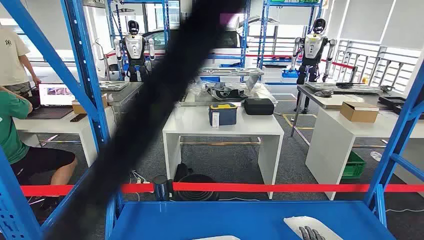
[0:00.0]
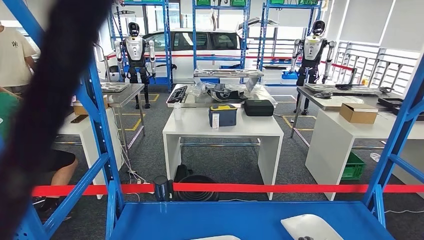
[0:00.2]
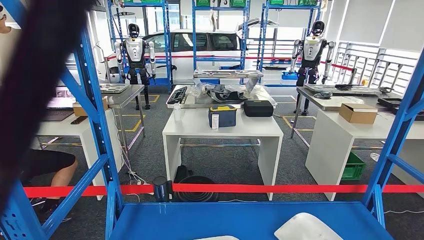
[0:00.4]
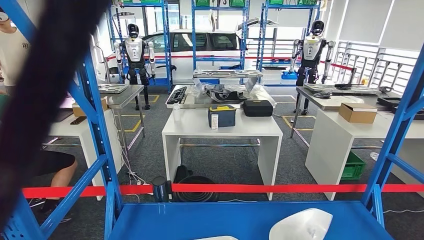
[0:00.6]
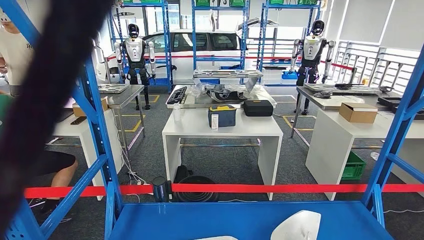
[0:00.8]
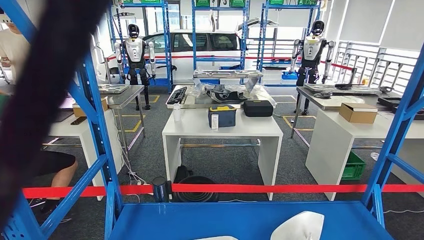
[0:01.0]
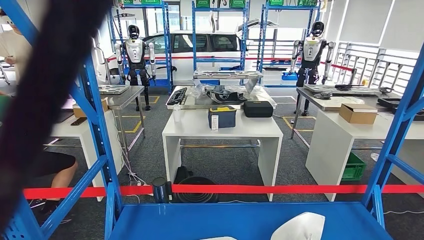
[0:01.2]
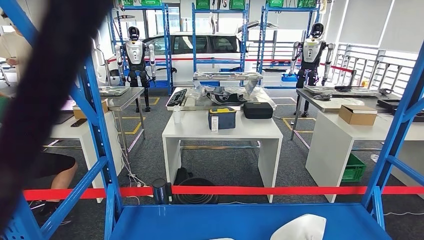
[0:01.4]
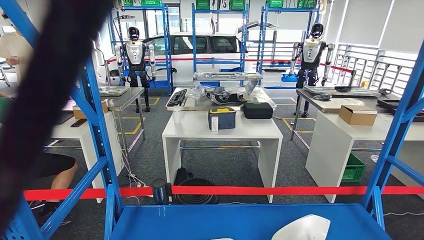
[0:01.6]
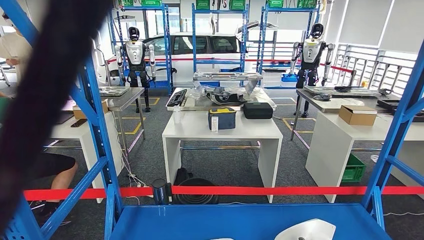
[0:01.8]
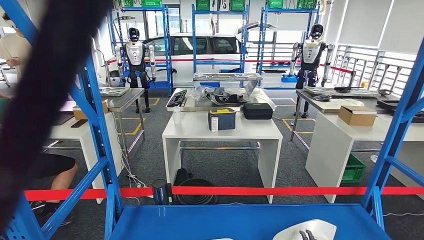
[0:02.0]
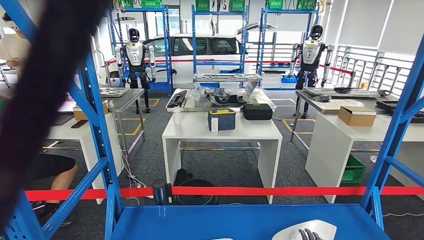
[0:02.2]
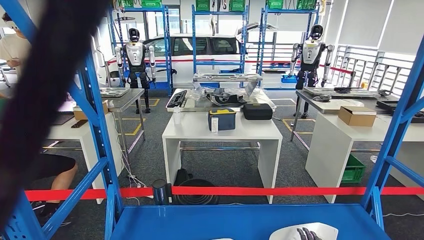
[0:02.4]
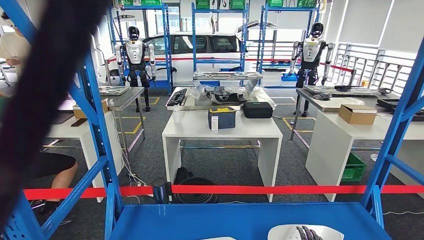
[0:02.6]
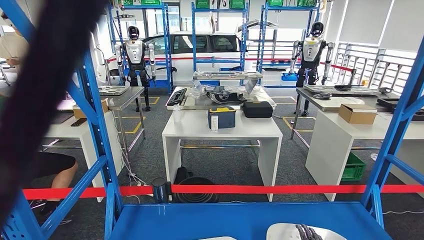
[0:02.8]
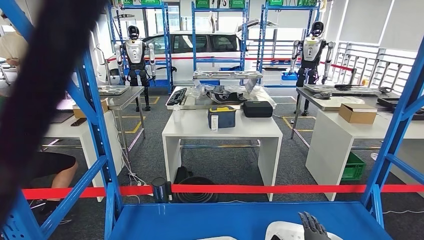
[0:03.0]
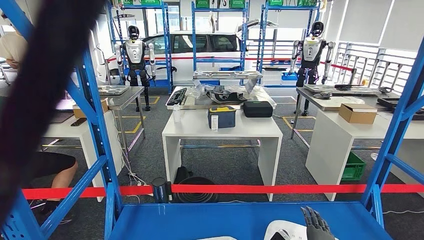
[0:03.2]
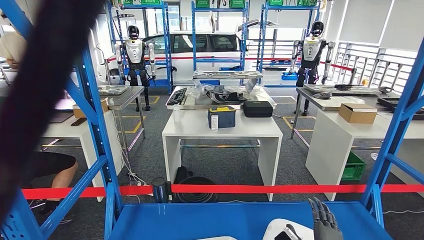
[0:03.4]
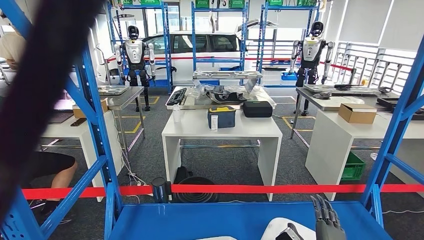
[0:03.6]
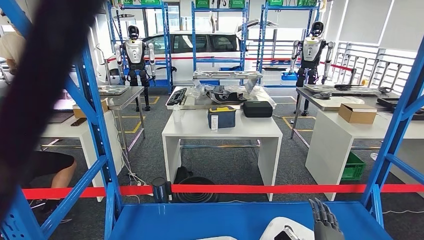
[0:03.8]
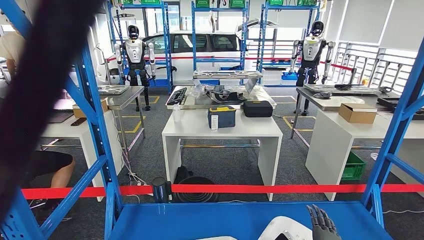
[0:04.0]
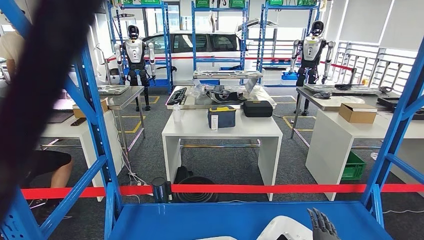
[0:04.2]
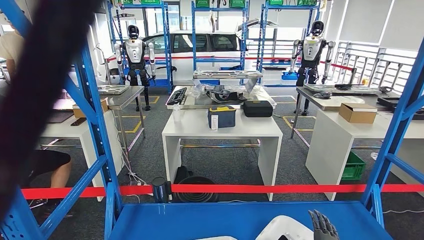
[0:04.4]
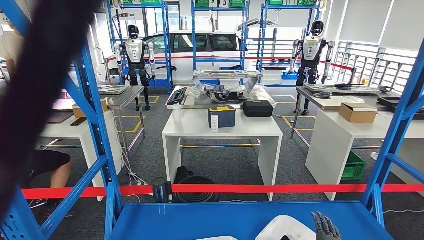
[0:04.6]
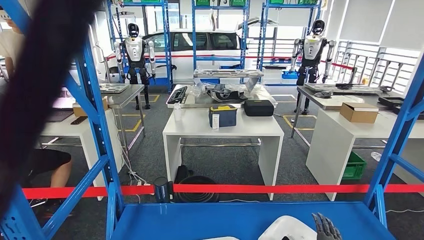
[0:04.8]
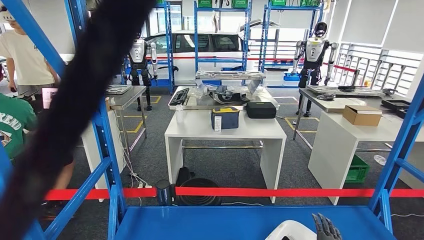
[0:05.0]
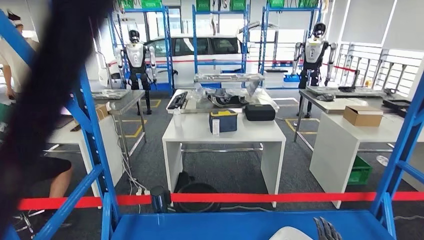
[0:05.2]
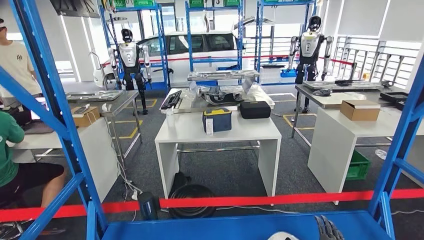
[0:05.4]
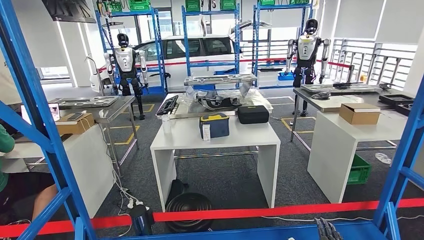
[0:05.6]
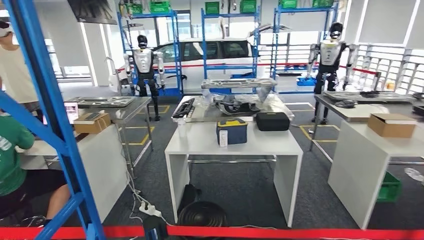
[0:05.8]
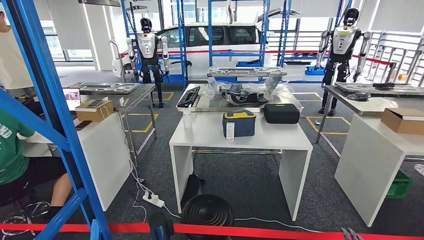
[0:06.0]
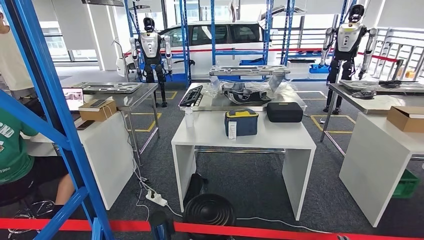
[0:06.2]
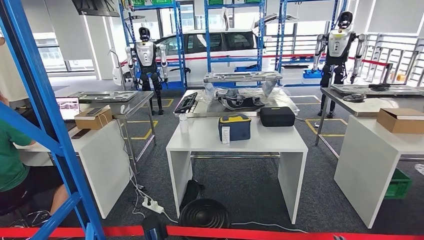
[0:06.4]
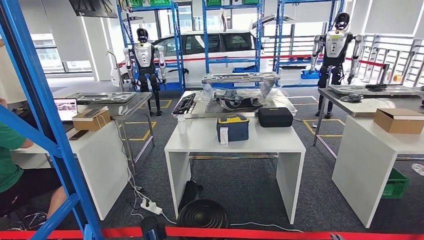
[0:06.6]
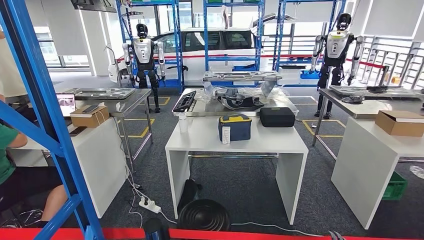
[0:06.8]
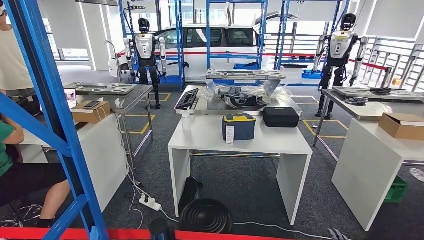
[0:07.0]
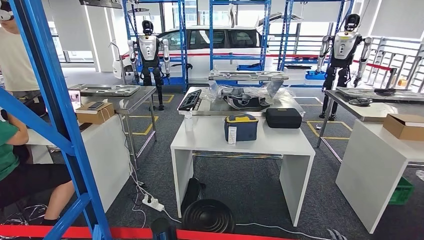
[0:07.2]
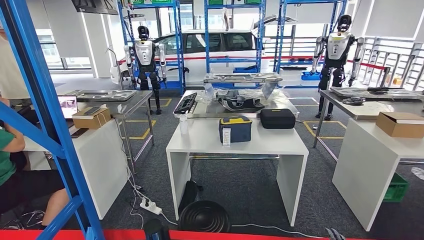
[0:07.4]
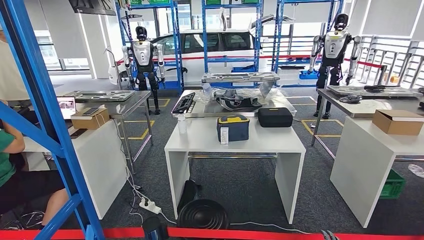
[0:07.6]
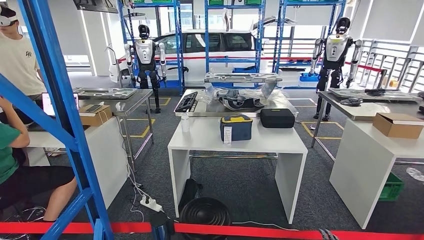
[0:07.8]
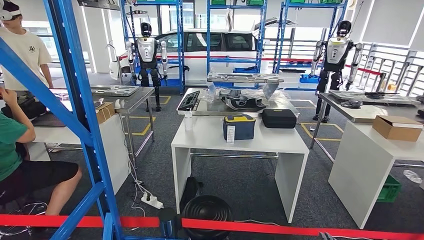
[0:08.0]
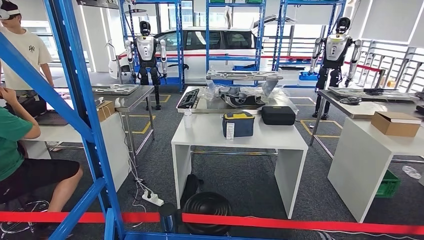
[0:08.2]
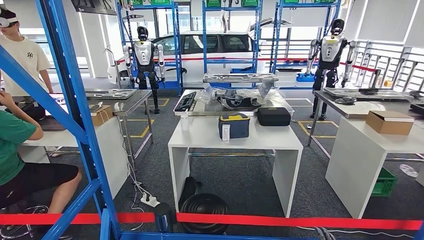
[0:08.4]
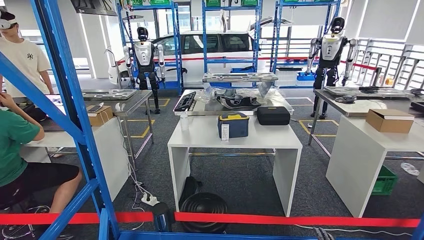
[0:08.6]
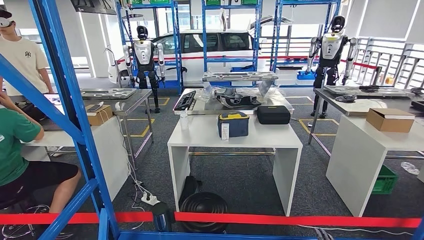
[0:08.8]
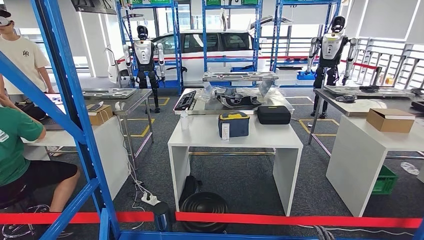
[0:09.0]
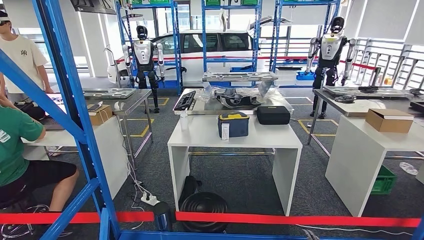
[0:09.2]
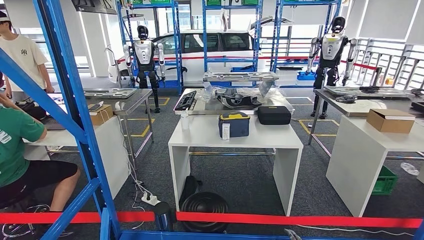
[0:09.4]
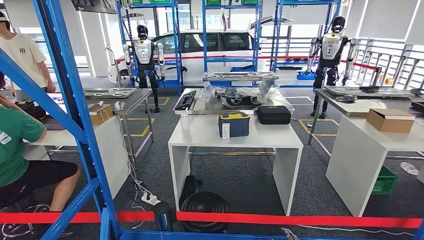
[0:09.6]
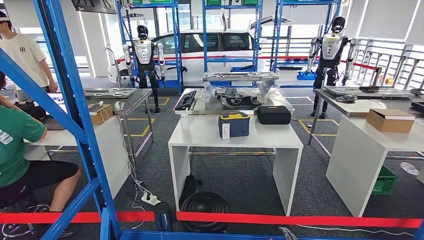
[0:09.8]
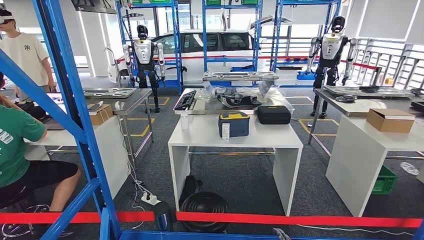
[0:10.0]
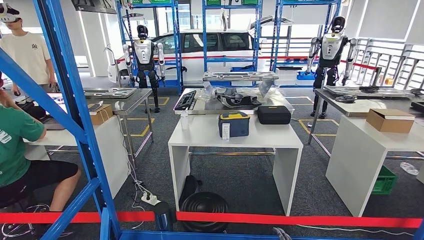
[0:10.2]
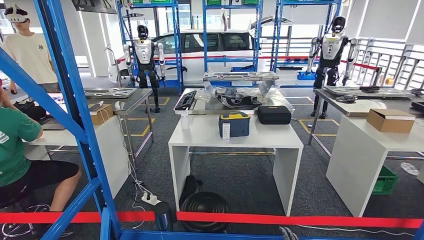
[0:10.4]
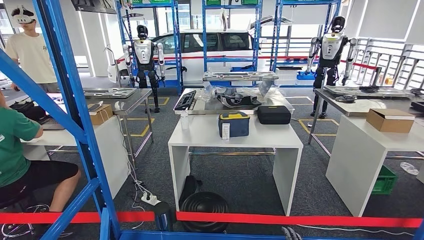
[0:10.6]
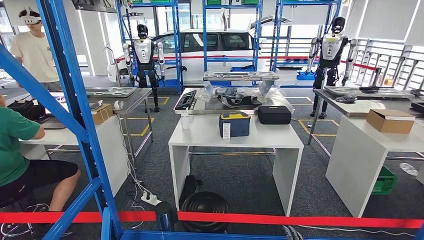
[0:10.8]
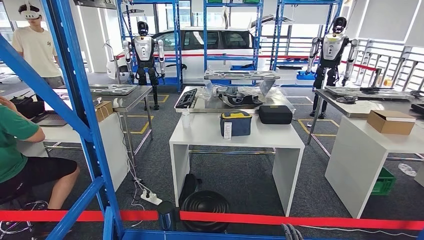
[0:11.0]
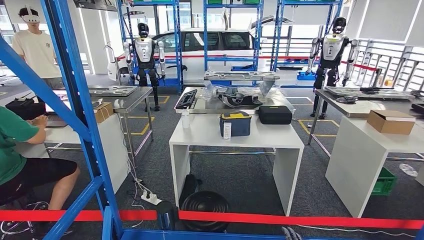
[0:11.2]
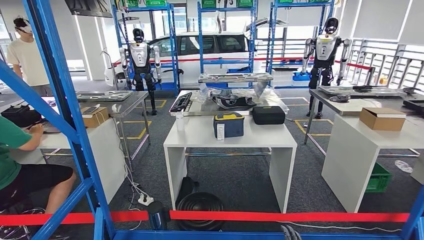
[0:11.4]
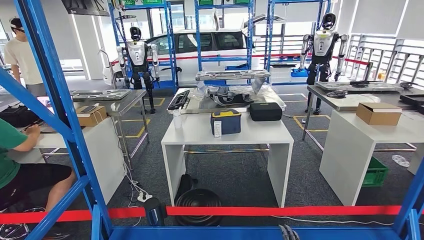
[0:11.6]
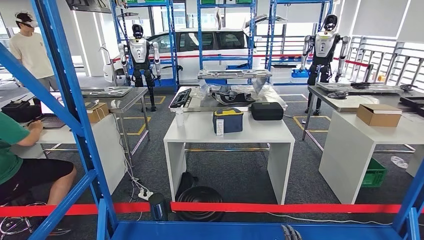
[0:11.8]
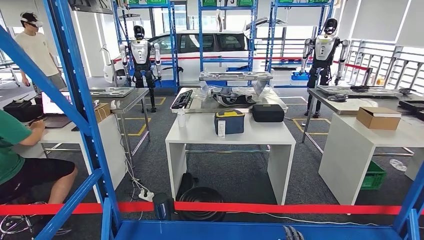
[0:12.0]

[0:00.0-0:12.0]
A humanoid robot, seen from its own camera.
0:01.6 to 0:03.0: The hands stay close to where they were, moving slightly.
0:09.0 to 0:10.4: The right hand heads to the left, covering some 10 cm.

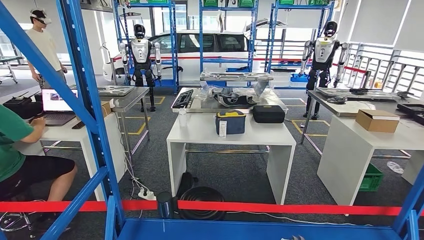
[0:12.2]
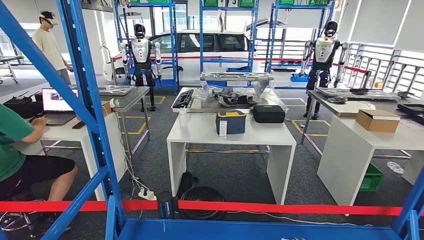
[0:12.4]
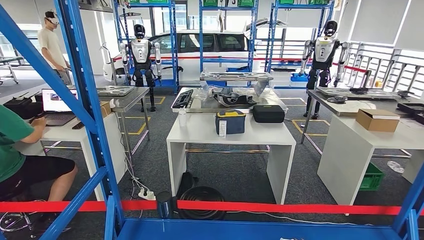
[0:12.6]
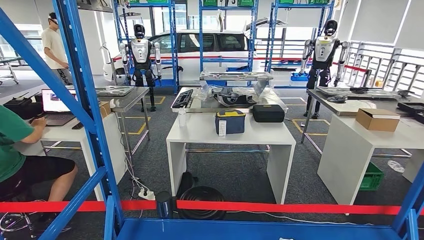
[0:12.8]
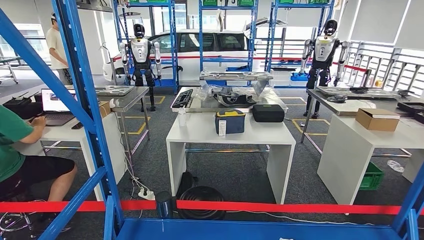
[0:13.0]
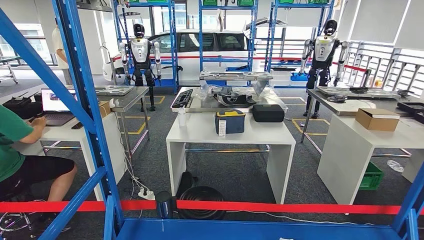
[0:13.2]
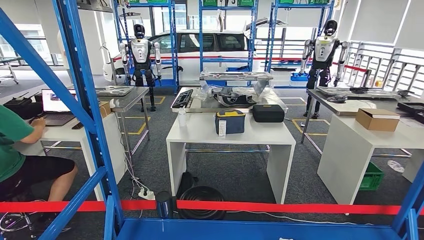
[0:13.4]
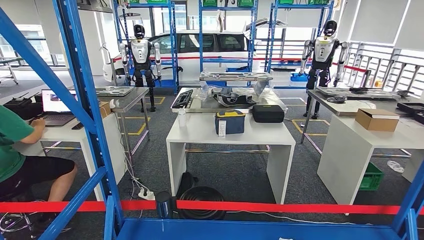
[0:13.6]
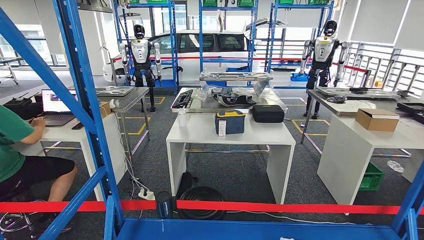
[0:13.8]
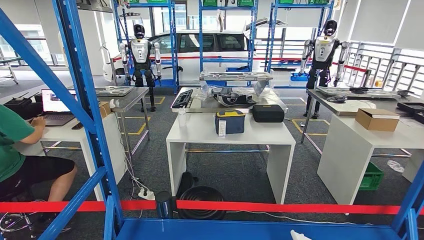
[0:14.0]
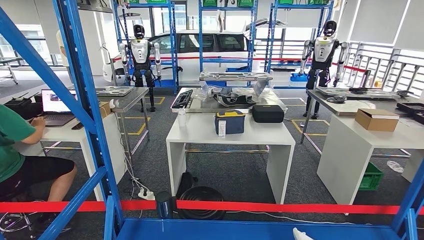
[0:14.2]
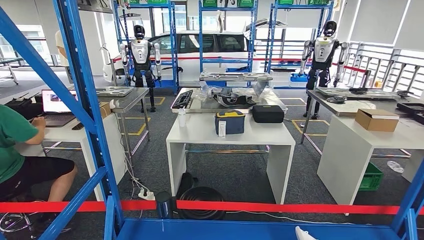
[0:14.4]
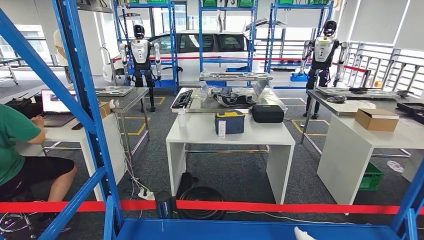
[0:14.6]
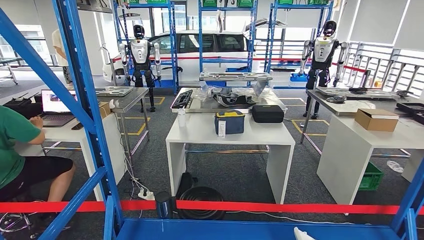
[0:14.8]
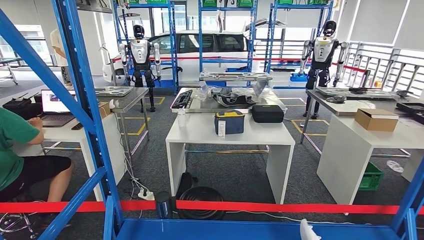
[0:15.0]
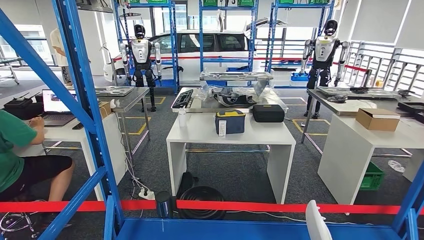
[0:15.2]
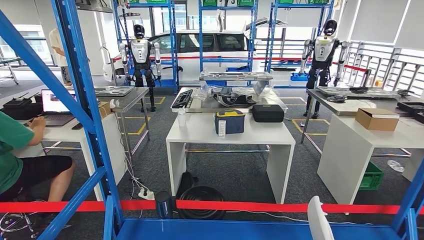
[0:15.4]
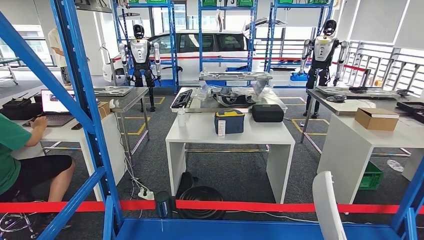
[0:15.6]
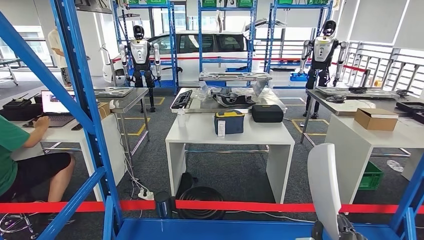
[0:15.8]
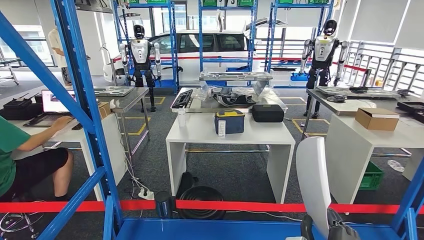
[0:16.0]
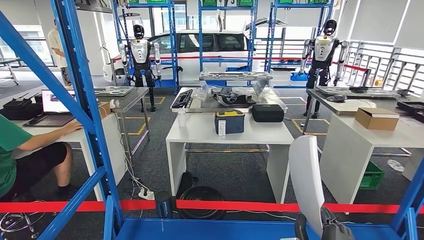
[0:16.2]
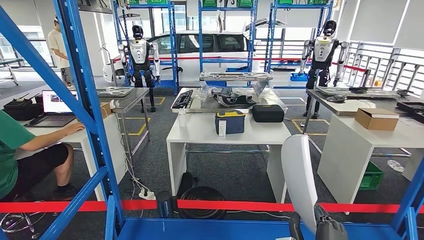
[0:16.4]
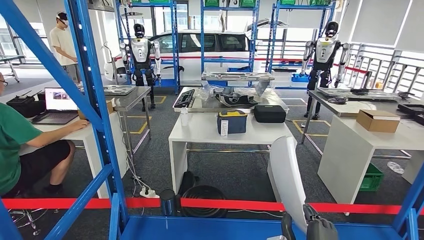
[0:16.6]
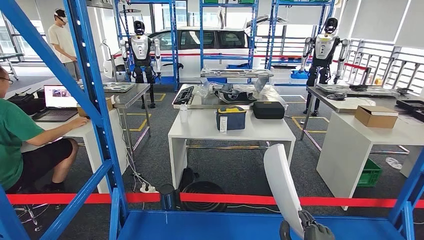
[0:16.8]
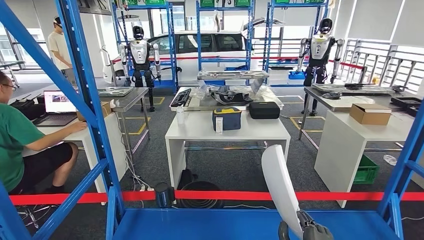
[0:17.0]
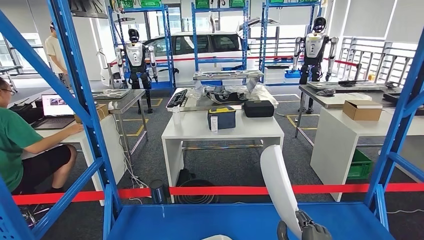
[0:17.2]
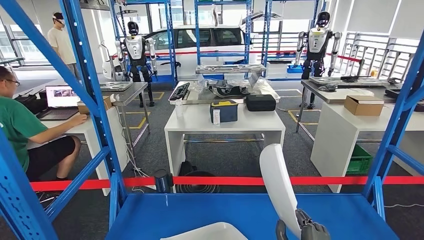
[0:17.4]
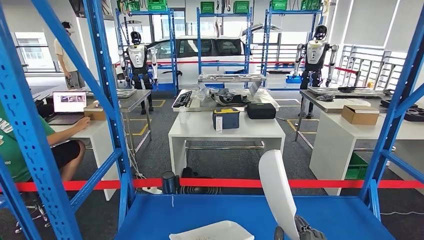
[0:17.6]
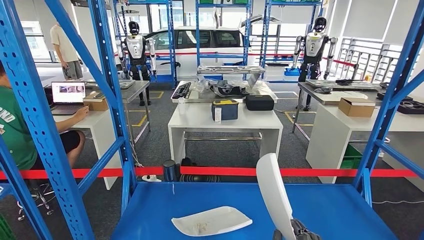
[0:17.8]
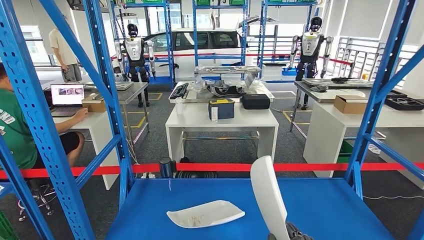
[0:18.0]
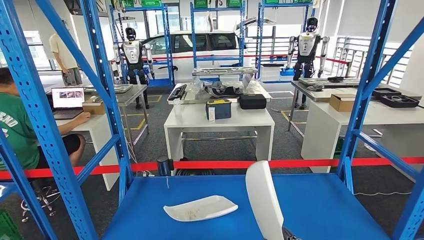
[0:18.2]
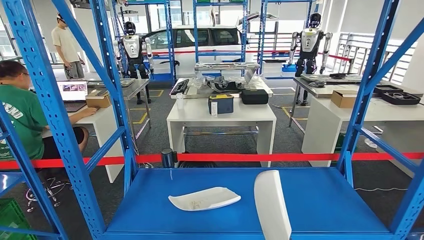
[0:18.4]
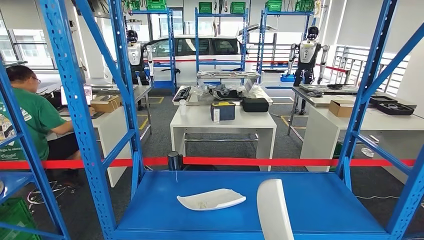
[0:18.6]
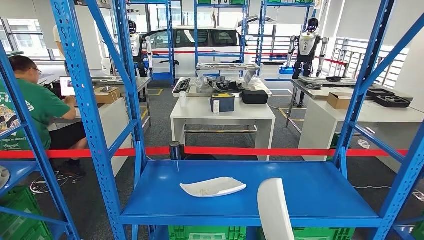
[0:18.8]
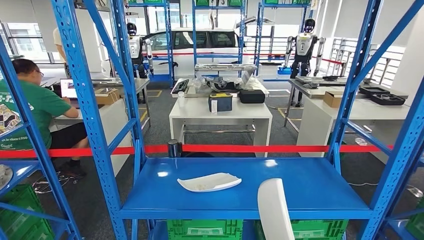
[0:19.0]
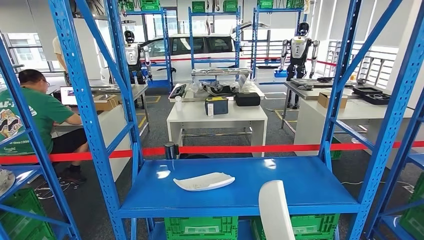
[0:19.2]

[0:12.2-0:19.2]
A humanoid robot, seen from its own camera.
Step, 0:12.2 to 0:17.4: Pick up the small parts from the shelf.
0:12.2 to 0:13.6: The right hand heads to the right, covering approximately 5 cm.
0:13.6 to 0:15.0: The hands move only a little.
0:15.0 to 0:16.4: The right hand moves upward and to the left, roughly 15 cm.
